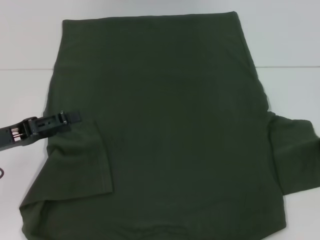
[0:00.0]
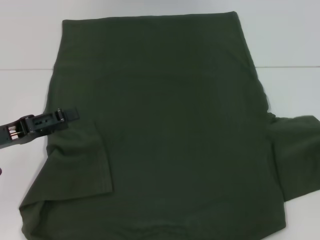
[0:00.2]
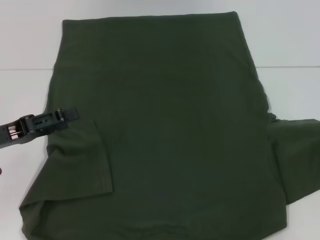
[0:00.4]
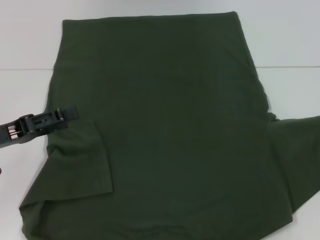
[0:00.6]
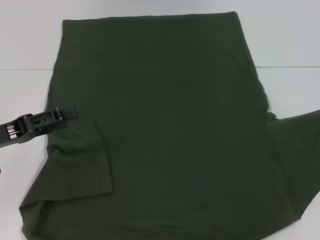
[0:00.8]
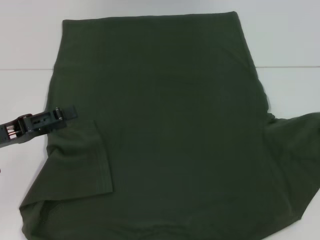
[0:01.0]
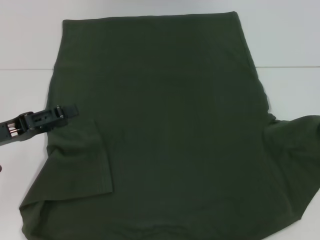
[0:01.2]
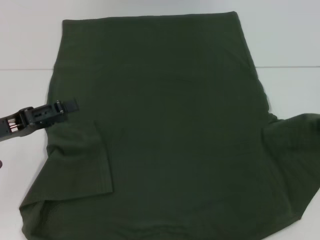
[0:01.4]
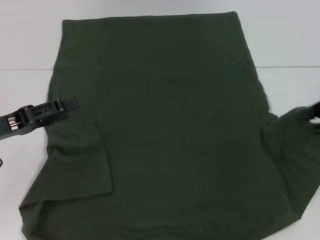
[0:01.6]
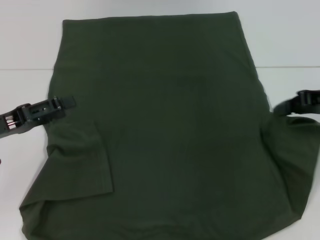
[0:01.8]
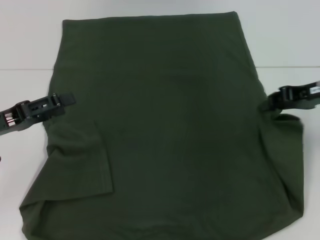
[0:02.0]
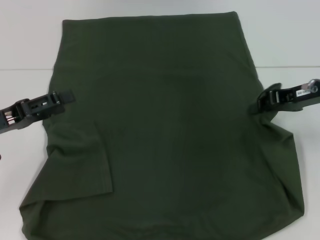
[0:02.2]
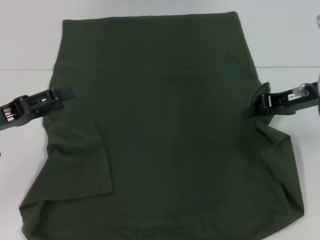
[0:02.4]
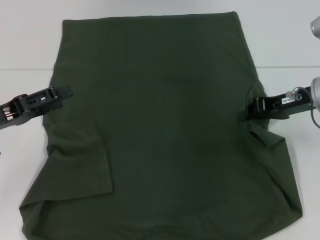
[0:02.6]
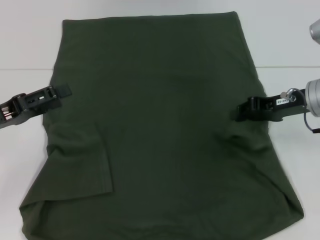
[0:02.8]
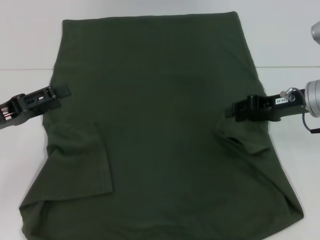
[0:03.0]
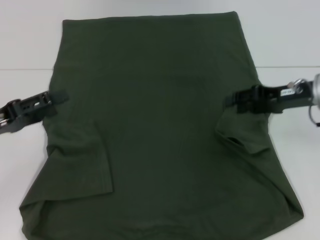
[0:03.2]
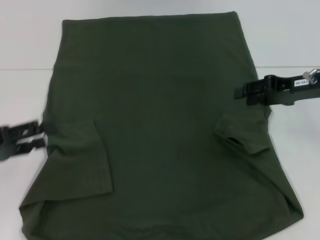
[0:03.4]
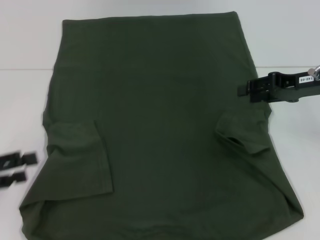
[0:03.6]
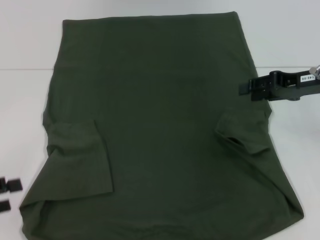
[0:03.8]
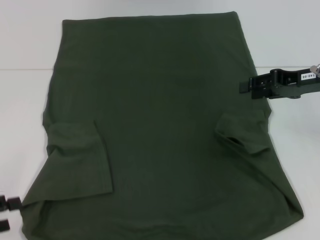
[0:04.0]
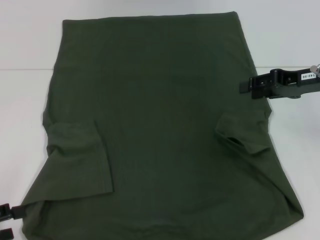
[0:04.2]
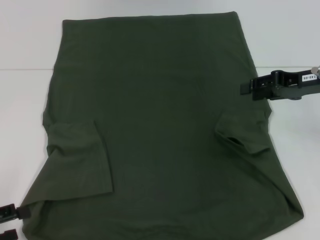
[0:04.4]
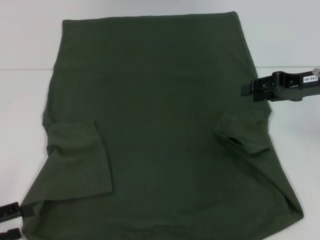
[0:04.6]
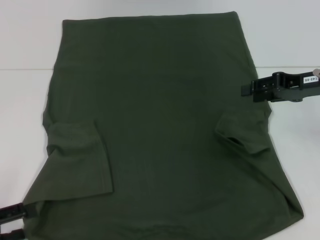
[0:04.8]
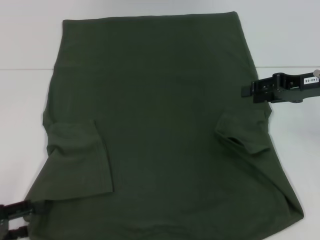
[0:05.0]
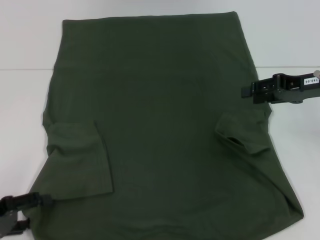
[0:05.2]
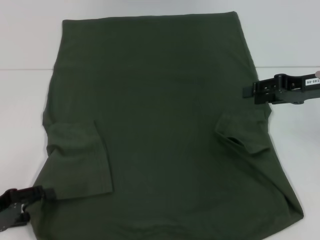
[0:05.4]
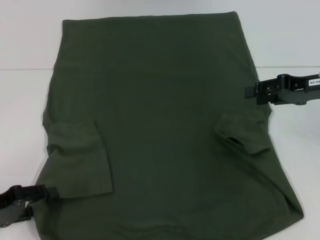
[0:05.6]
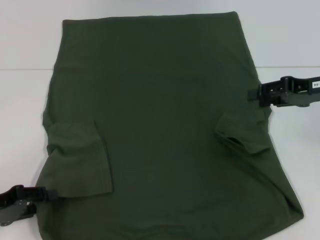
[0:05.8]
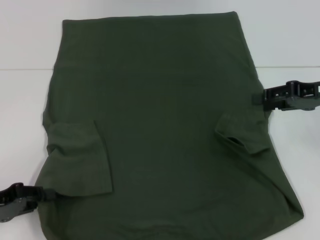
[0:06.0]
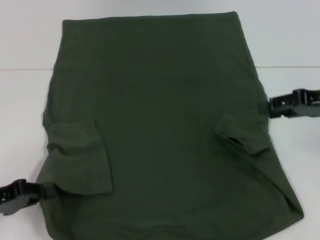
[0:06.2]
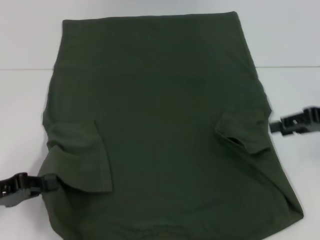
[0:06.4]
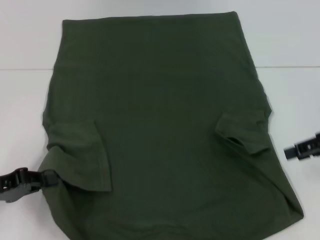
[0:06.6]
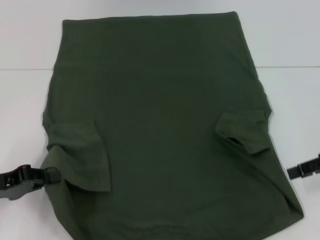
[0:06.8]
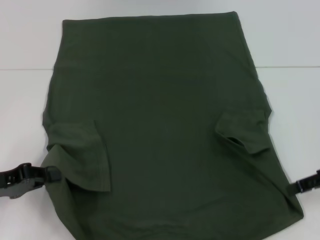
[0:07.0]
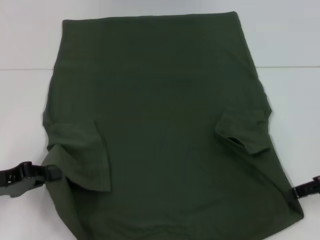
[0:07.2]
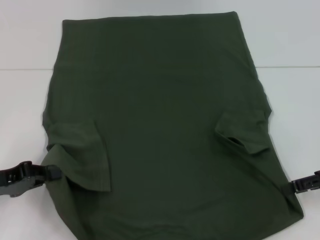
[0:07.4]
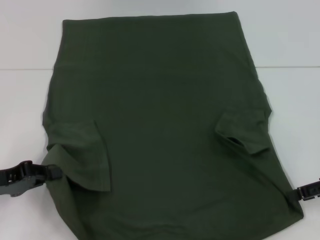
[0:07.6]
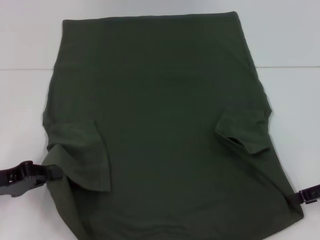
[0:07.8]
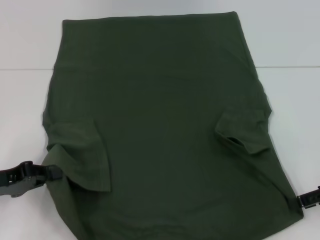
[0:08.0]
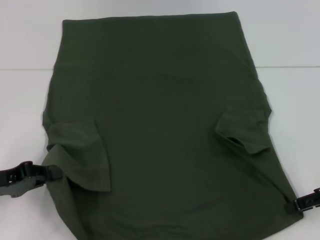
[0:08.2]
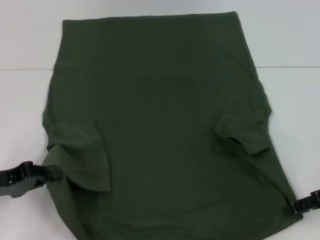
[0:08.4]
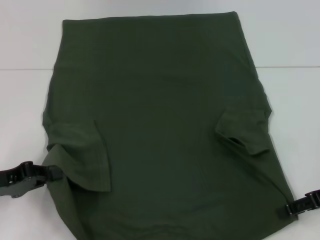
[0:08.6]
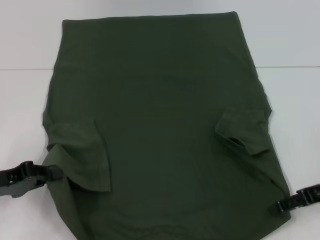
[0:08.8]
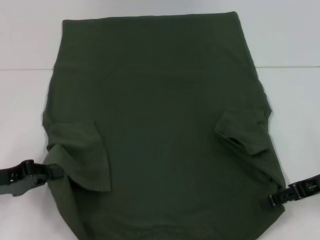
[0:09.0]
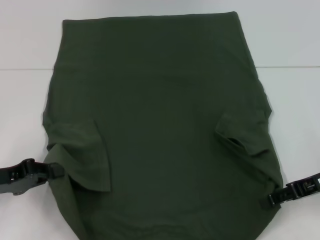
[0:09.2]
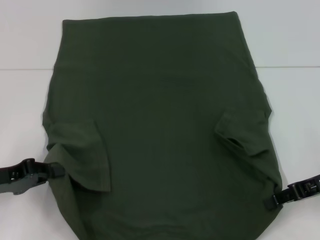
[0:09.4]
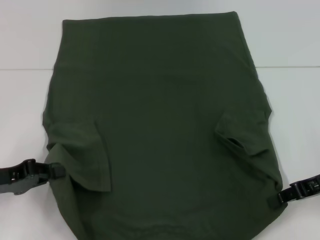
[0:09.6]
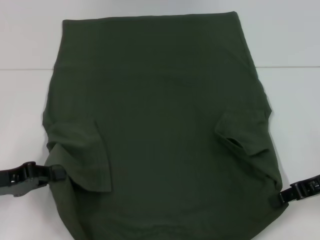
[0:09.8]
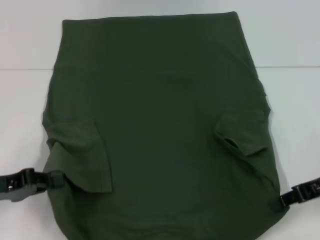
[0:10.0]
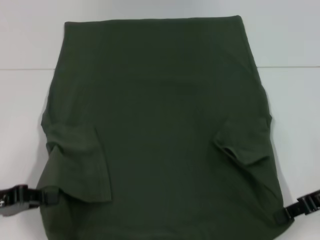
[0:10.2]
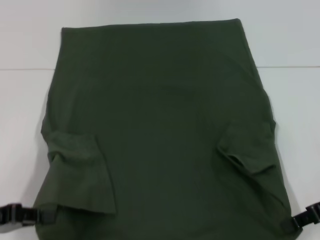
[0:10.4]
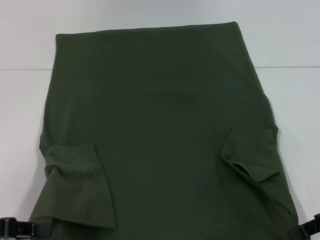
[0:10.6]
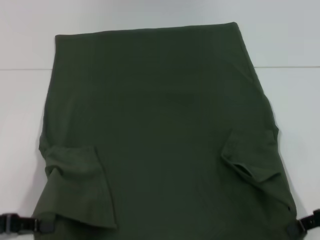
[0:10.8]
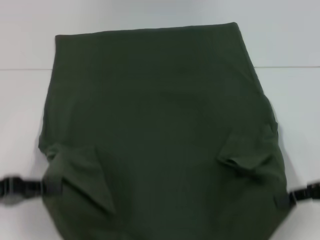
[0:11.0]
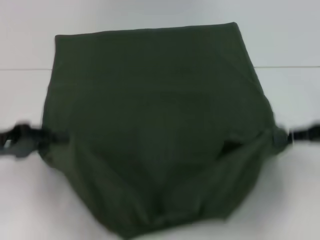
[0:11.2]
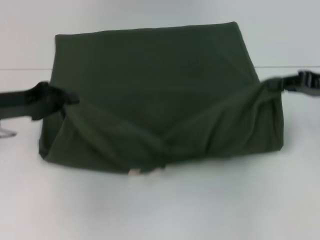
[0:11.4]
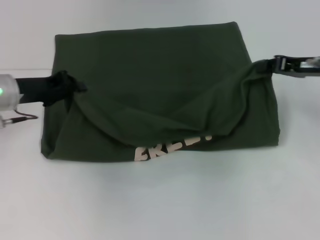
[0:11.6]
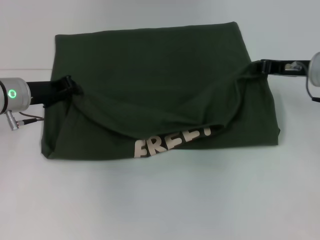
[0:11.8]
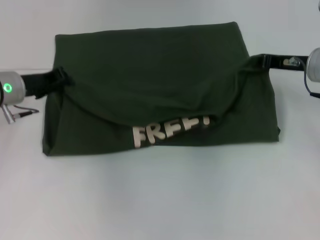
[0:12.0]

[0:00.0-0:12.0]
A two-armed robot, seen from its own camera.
Step, 0:00.0 to 0:02.8: Fold the bottom right sleeve with your right hand.
Step, 0:03.0 to 0:05.8: Grab the bottom left corner with your left hand.
Step, 0:06.0 to 0:09.2: Grab the bottom right corner with your right hand.
0:00.0 to 0:01.6: The right gripper travels upward by about 5 cm.
0:01.6 to 0:03.0: The right gripper moves to the left, about 10 cm.
0:03.0 to 0:04.4: The right gripper opens up, while the left gripper moves backward, to the left and downward, about 15 cm.
0:04.4 to 0:06.0: The left gripper moves forward, about 5 cm, and closes its fingers.
0:06.0 to 0:07.6: The left gripper closes its fingers, while the right gripper is displaced backward and downward by approximately 10 cm.
0:07.6 to 0:09.0: There are only small adjustments of the grippers.
0:09.0 to 0:10.4: The right gripper closes up.
0:10.4 to 0:12.0: The grippers both shift forward by approximately 15 cm.

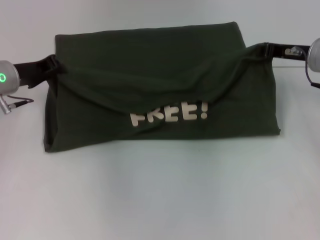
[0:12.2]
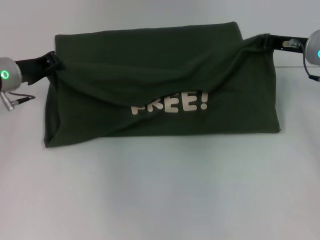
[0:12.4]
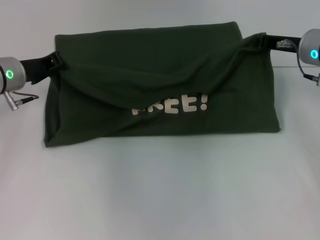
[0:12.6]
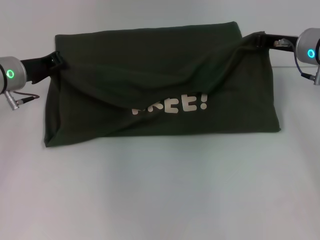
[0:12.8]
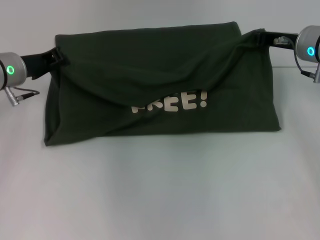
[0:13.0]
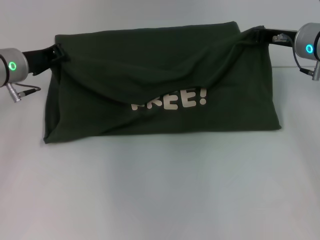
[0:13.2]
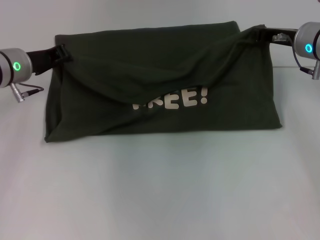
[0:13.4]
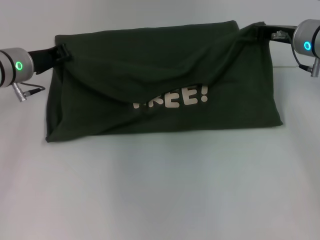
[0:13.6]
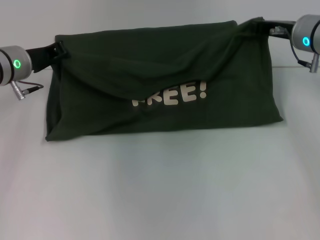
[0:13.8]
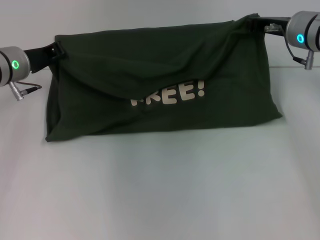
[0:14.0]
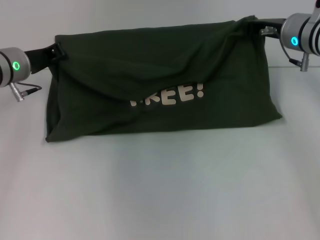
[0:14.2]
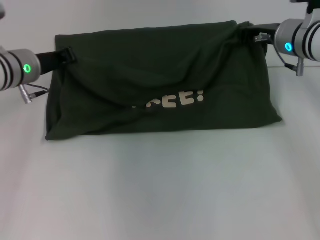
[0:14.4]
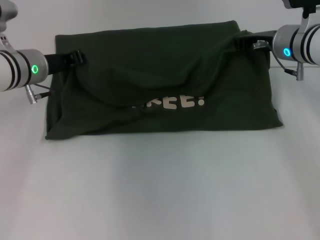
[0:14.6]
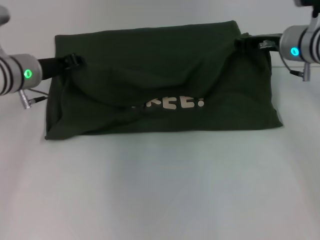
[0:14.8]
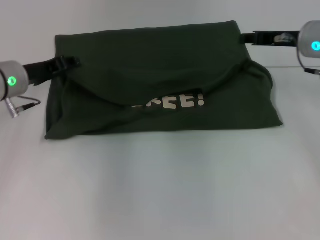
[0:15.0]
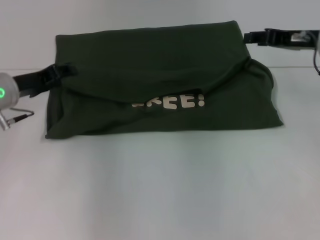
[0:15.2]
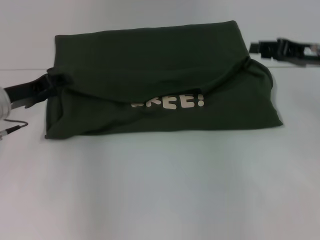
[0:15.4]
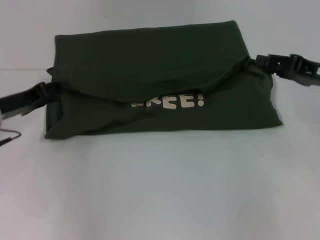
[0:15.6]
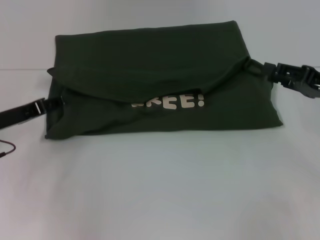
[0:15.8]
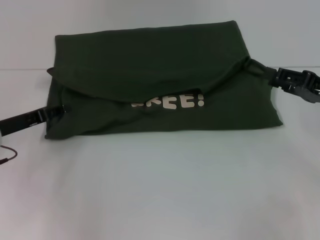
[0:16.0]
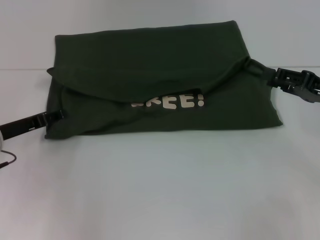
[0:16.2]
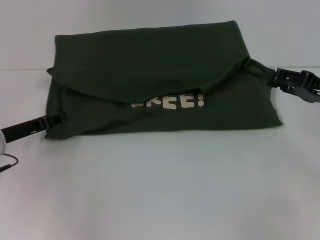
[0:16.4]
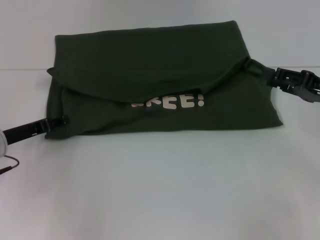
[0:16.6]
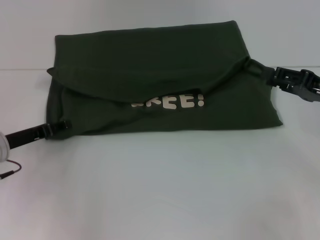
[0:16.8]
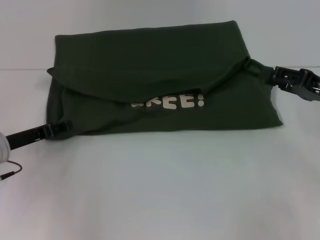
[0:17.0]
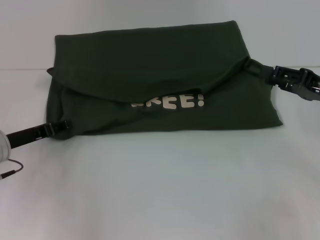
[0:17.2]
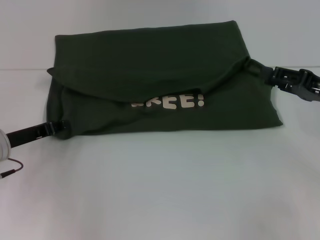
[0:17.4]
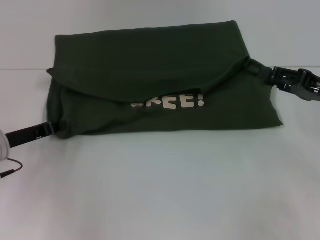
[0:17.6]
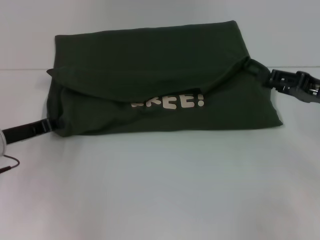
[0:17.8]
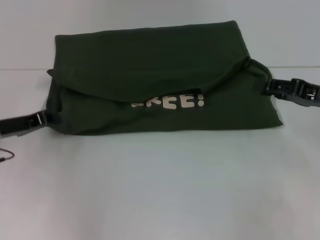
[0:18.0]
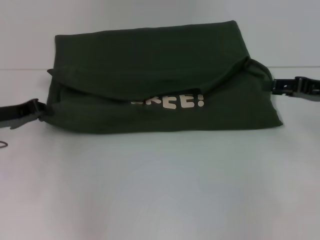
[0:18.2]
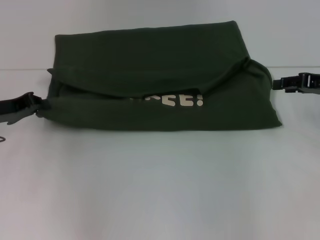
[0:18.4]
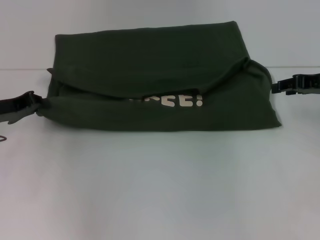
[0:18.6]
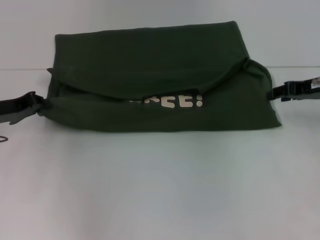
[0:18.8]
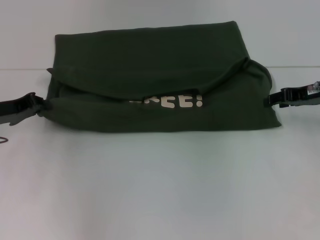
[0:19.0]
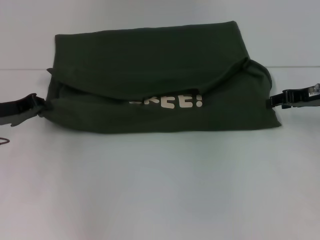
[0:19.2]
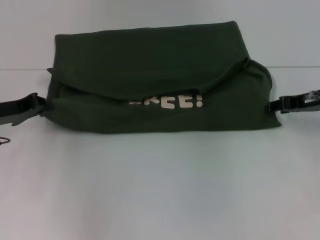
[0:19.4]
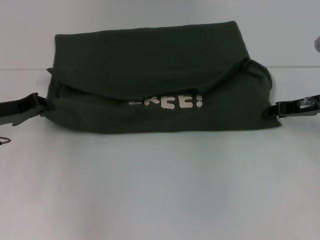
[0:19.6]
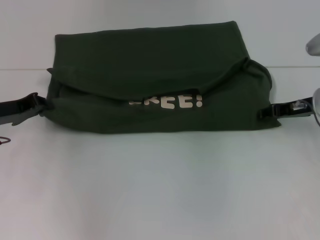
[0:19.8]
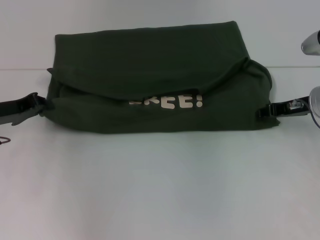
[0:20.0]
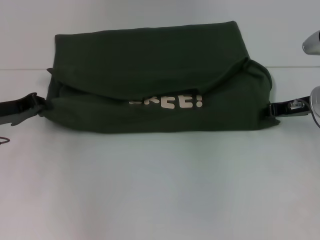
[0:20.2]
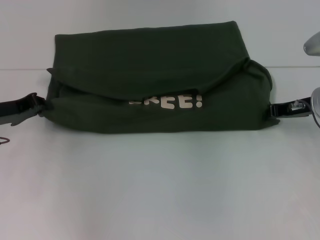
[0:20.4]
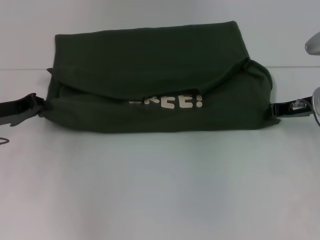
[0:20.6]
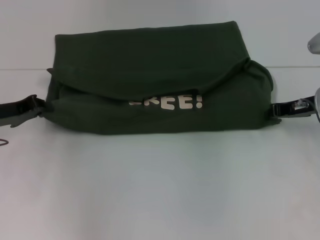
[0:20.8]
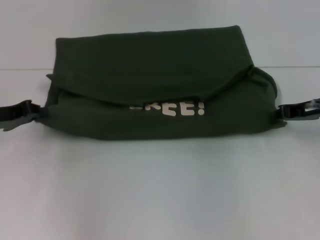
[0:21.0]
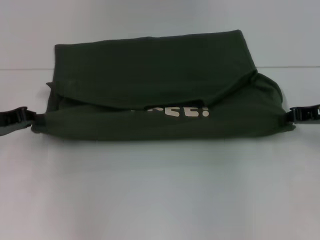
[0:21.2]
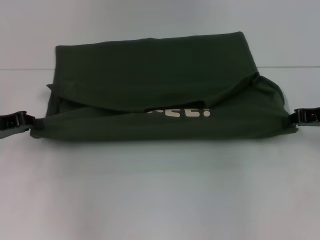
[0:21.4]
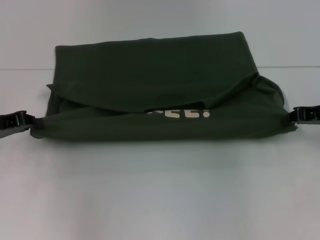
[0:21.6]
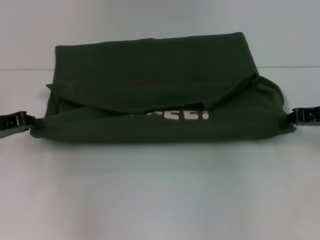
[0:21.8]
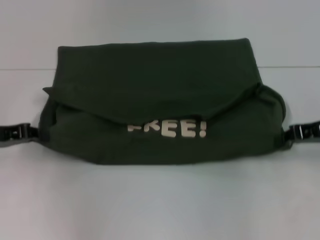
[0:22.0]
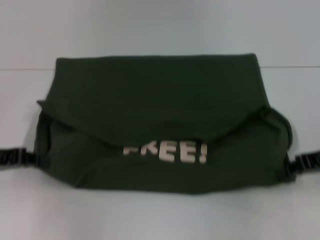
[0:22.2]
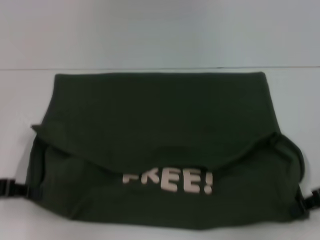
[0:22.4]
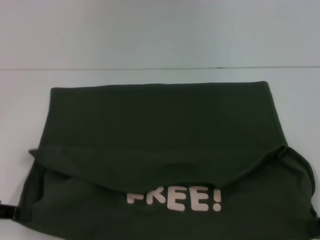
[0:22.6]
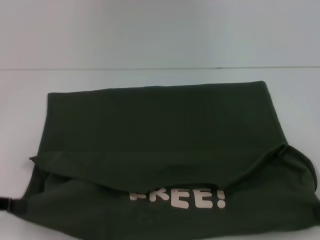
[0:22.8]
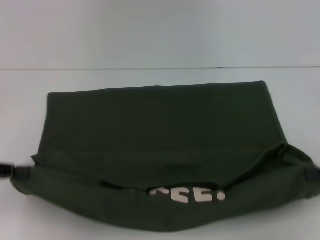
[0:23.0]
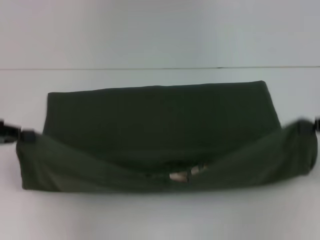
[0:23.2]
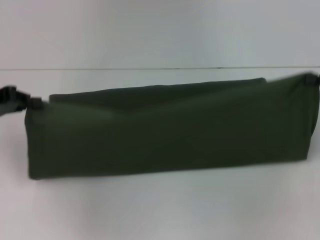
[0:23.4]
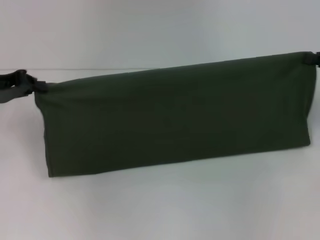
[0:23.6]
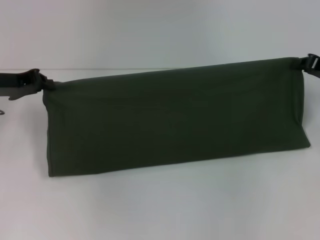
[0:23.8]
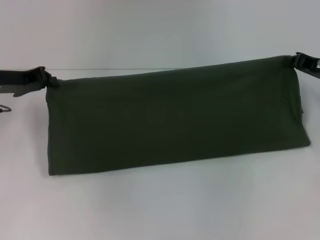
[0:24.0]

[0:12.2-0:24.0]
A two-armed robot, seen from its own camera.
Step, 0:12.2 to 0:14.8: Fold the clothes with your left hand.
Step, 0:12.2 to 0:14.8: Fold the clothes with your right hand.
Step, 0:15.0 to 0:22.6: Pull the clothes with your left hand.
Step, 0:15.0 to 0:22.6: Pull the clothes with your right hand.
0:12.2 to 0:13.6: The grippers stay close to where they were, moving slightly.
0:13.6 to 0:15.2: The left gripper changes place by some 5 cm, and opens up. The right gripper opens up.
0:15.2 to 0:16.6: The right gripper moves backward, downward and to the right, about 10 cm. Meanwhile the left gripper goes about 5 cm downward.
0:16.6 to 0:18.2: The left gripper closes.
0:18.2 to 0:19.6: The right gripper changes place by roughly 5 cm.
0:19.6 to 0:21.0: The right gripper closes up.
0:21.0 to 0:22.6: The left gripper goes about 10 cm backward. The right gripper travels backward and to the right by about 15 cm.
0:22.6 to 0:24.0: Both grippers move forward, approximately 15 cm.
